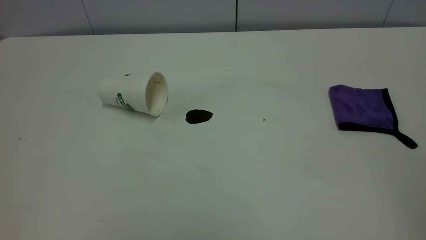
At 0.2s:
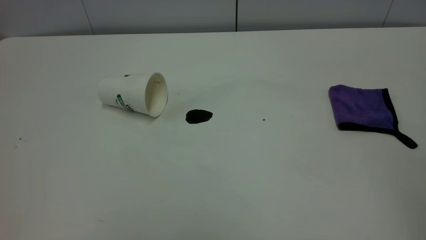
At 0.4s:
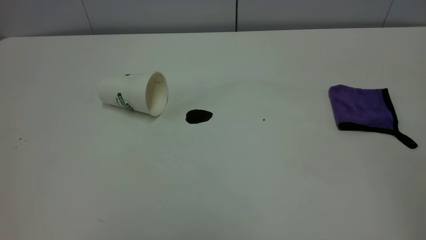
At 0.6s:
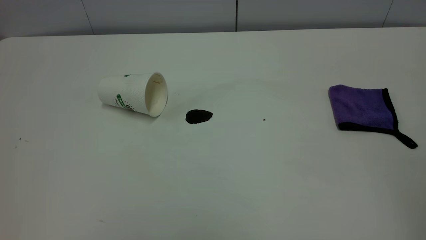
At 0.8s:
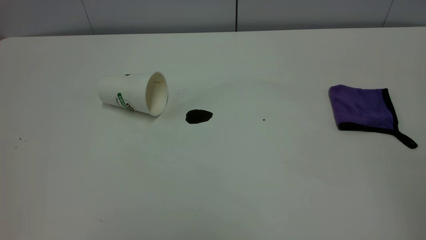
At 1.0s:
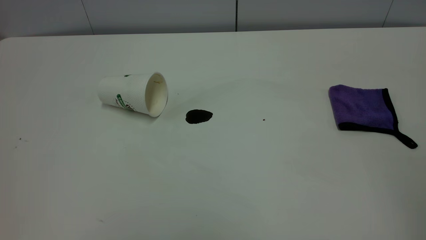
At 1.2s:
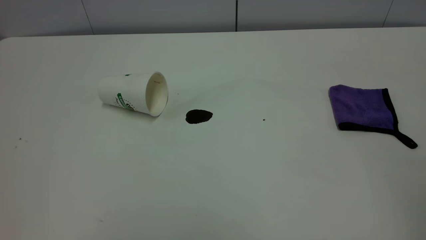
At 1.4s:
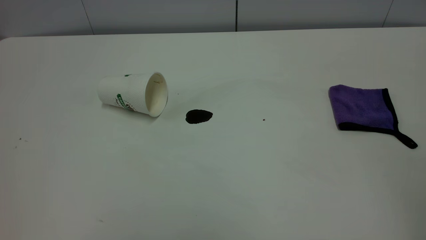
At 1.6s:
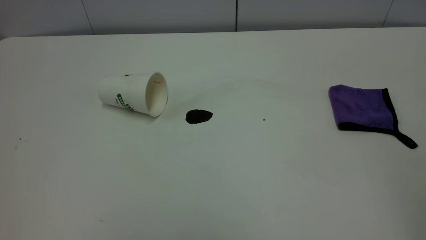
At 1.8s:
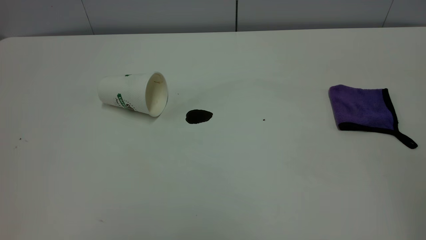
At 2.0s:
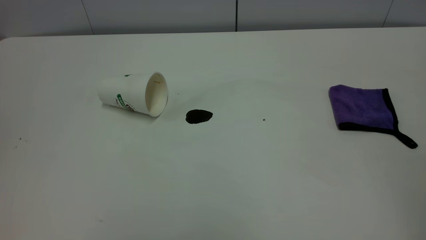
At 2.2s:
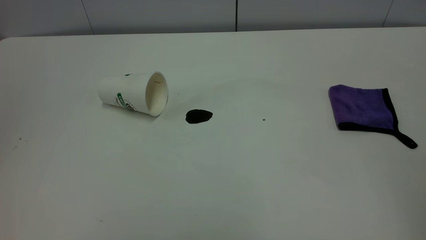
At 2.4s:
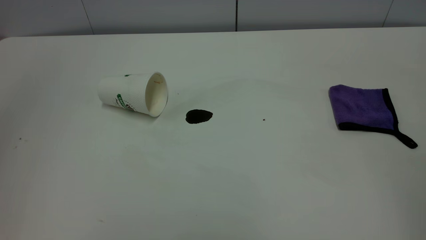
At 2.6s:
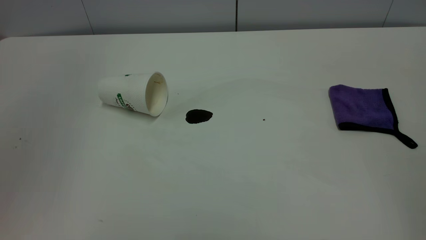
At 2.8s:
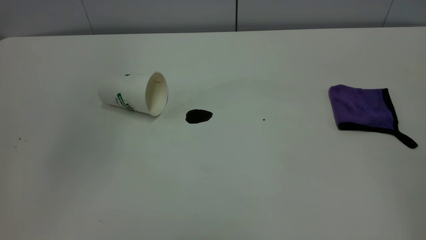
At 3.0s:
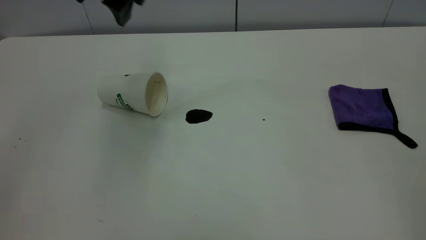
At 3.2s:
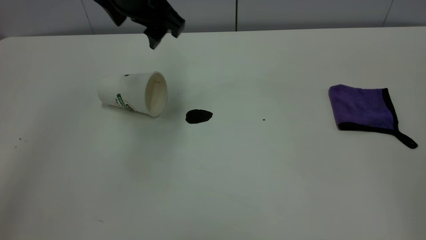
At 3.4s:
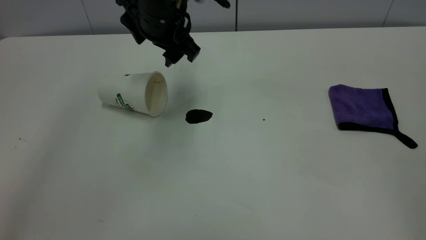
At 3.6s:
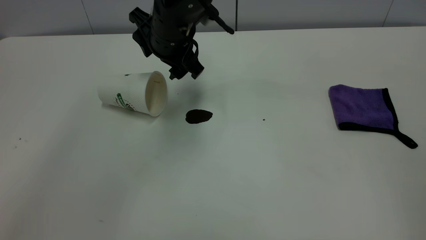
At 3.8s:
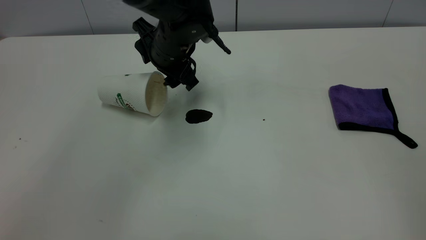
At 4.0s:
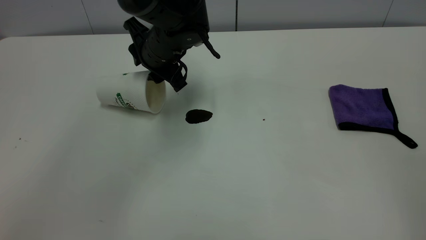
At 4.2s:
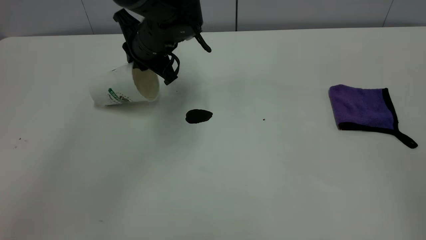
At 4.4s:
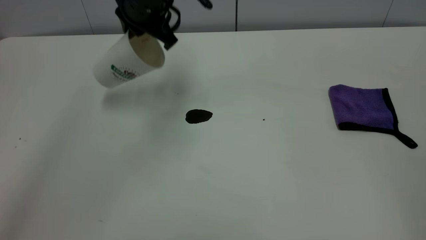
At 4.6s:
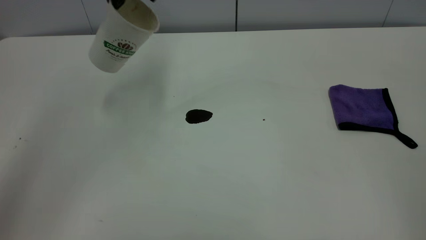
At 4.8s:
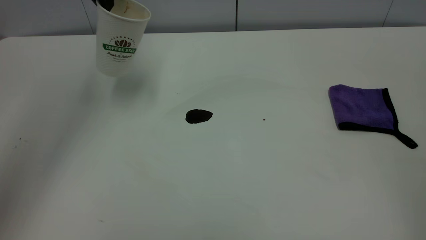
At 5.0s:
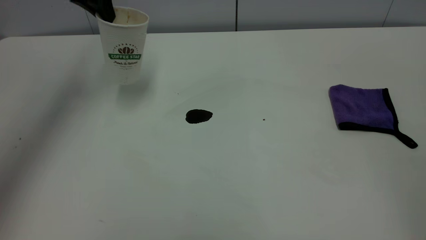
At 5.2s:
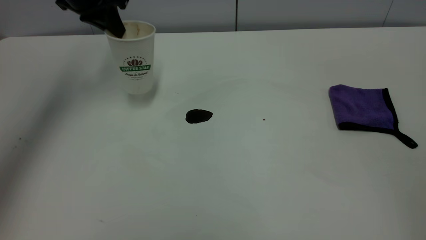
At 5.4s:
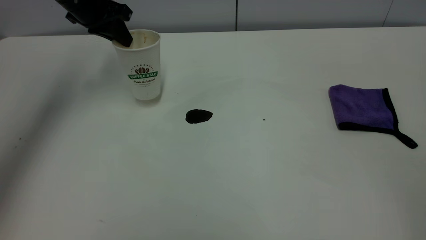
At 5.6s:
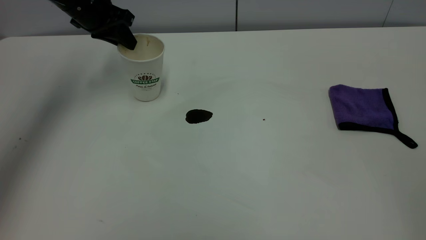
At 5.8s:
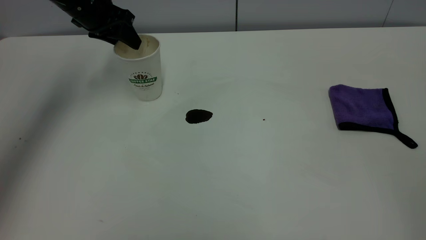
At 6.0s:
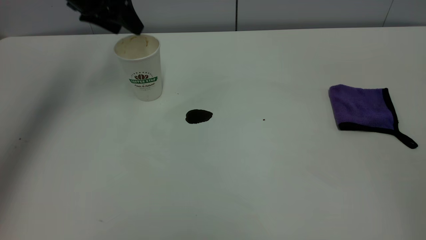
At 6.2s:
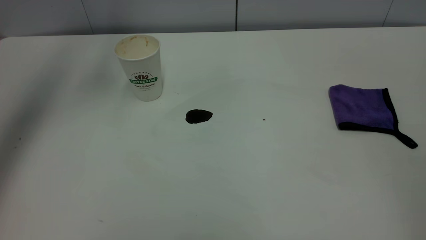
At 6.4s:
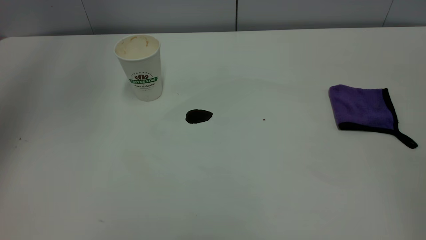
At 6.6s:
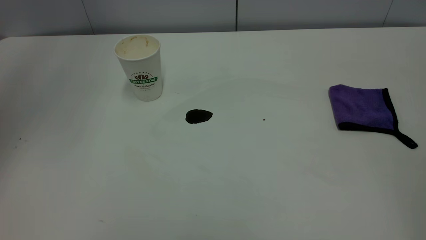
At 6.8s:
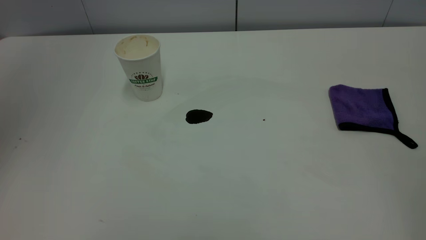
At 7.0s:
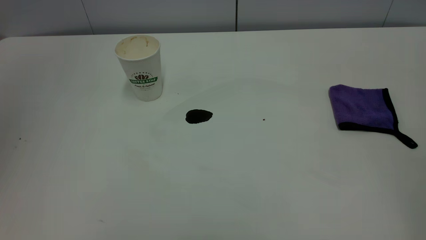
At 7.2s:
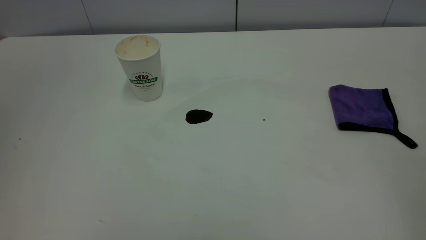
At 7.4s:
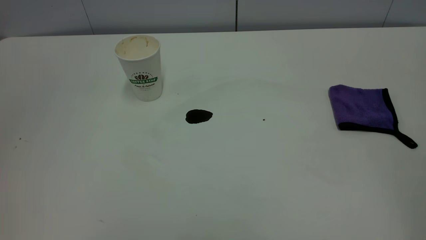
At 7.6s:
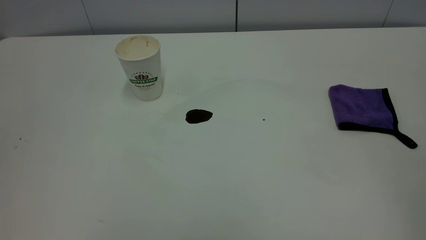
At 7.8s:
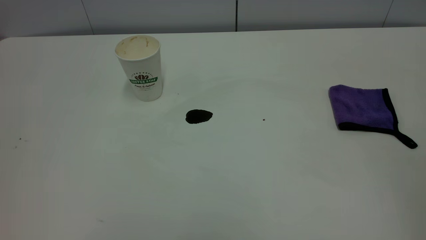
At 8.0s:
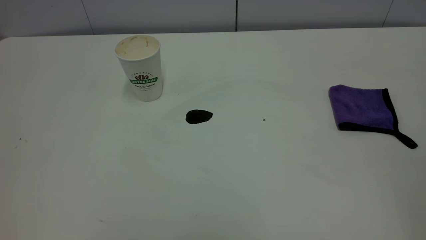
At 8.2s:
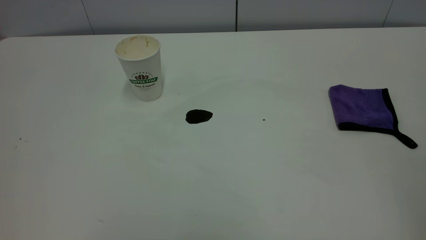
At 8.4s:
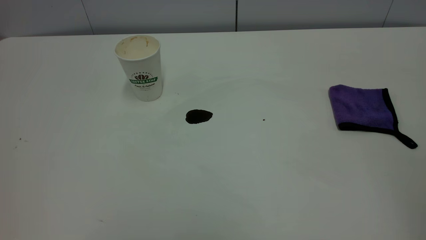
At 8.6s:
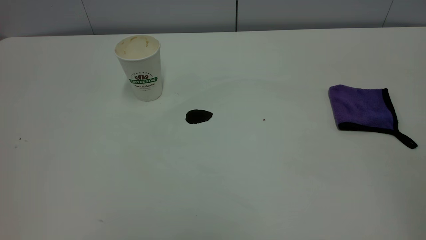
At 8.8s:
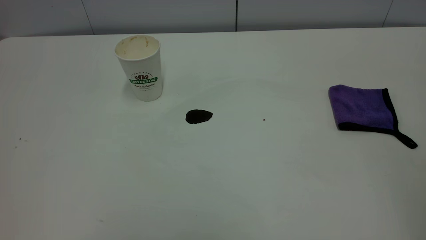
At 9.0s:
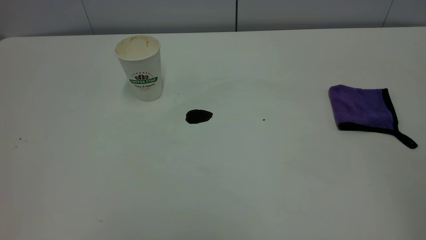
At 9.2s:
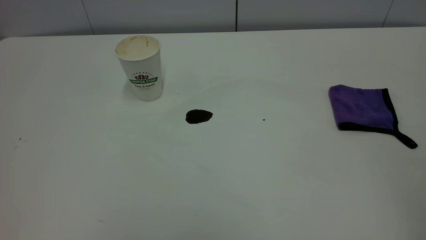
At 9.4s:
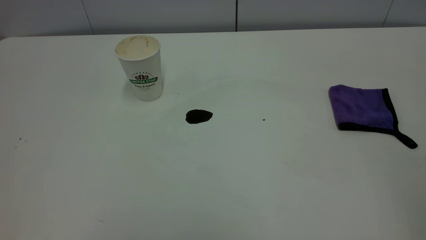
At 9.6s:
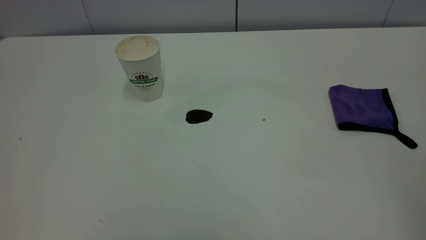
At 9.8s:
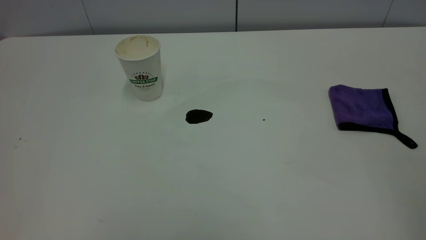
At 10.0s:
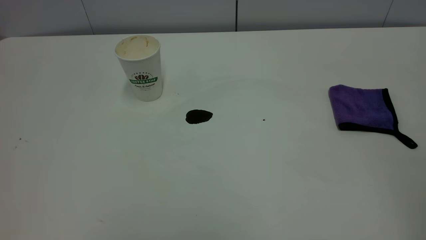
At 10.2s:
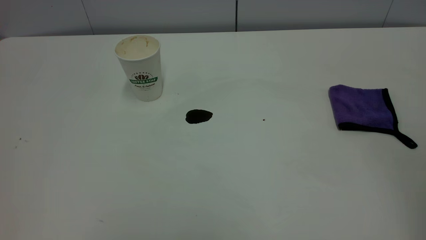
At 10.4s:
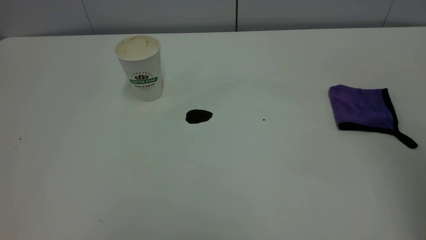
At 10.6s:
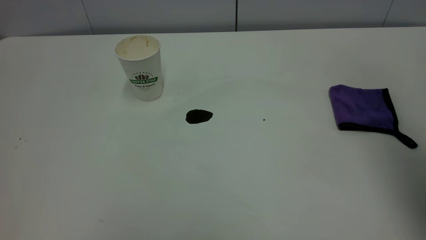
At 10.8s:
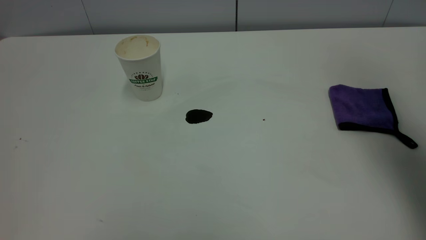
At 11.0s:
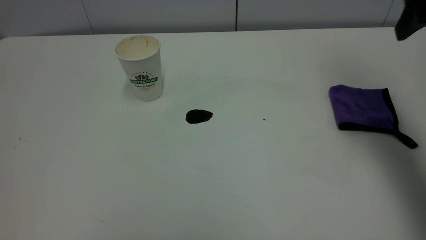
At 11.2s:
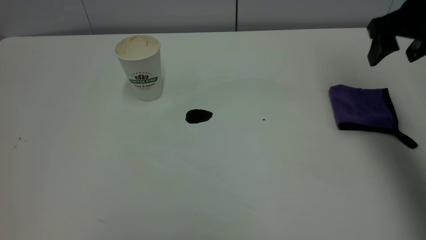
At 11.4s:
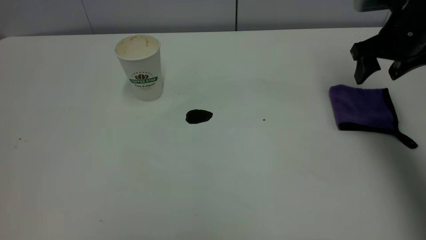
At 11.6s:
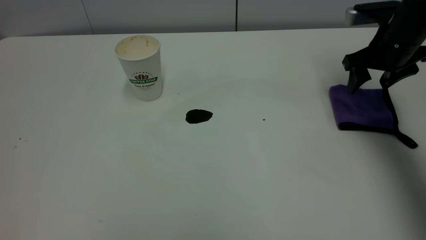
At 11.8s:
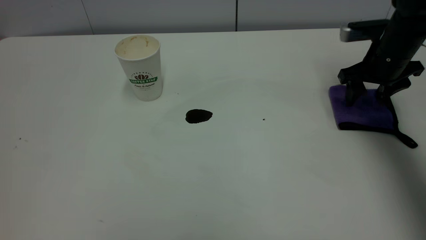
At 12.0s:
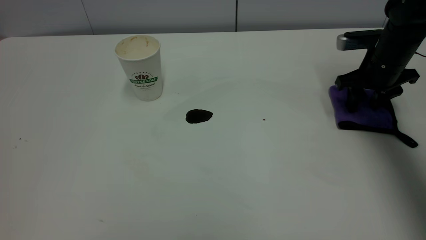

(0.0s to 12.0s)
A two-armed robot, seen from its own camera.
Task of the whole recording: the left gripper pick up the fallen cup and place it upright, the right gripper grasp the purple rag and wipe the coffee stain on the table, the right gripper put the purple rag back in its original position.
Step, 0.0s - 5.8s: Stand the paper cup upright.
0.0s - 1.6s: Both grippers stay about where they are.
1.6s - 3.0s: The left gripper is displaced forward and to the right by about 40 cm, and opens.
3.0s - 4.4s: The left gripper is displaced forward and downward by roughly 10 cm, and closes its fingers.
4.4s - 6.0s: The left gripper shifts approximately 15 cm to the left, and opens.
6.0s - 7.6s: The left gripper travels backward and upward by roughly 50 cm, and closes its fingers.
10.4s - 12.0s: The right gripper heads downward and forward, covering roughly 50 cm.

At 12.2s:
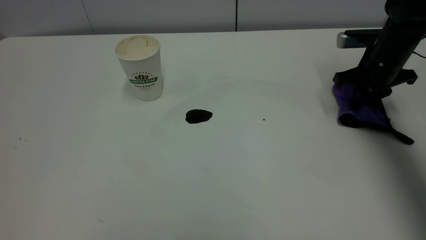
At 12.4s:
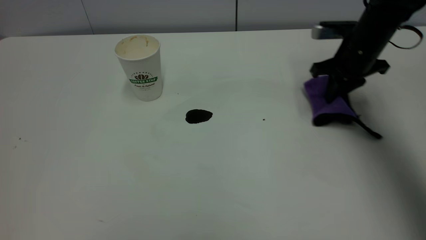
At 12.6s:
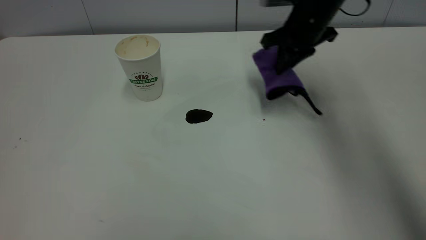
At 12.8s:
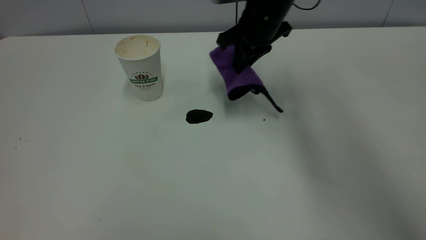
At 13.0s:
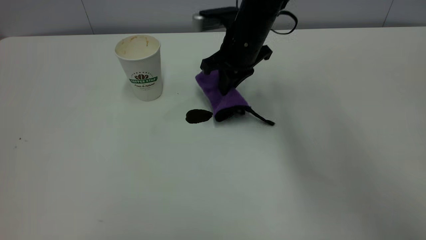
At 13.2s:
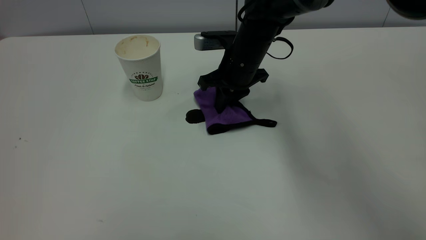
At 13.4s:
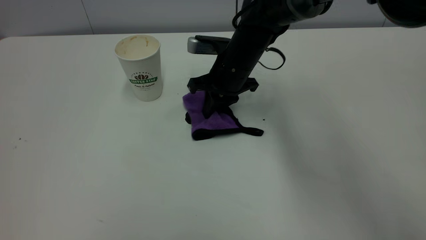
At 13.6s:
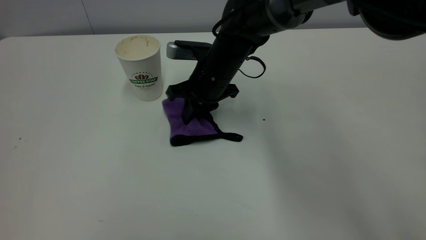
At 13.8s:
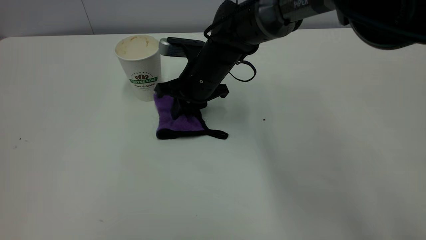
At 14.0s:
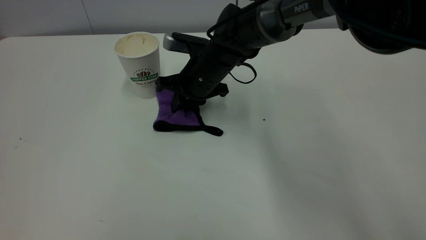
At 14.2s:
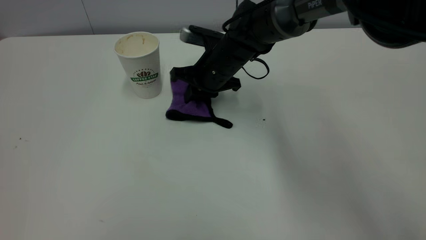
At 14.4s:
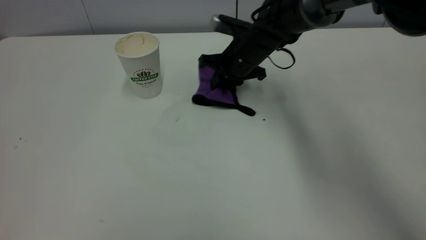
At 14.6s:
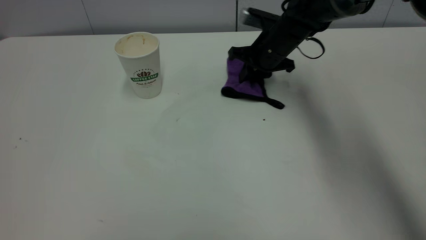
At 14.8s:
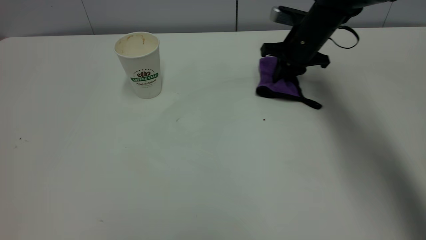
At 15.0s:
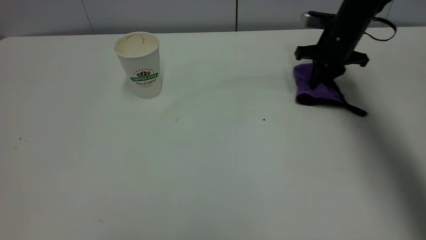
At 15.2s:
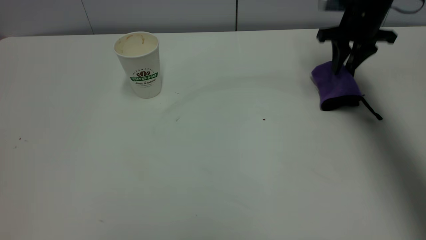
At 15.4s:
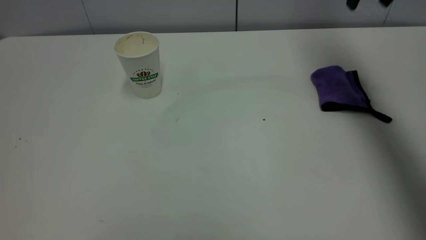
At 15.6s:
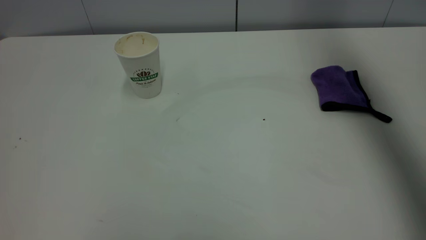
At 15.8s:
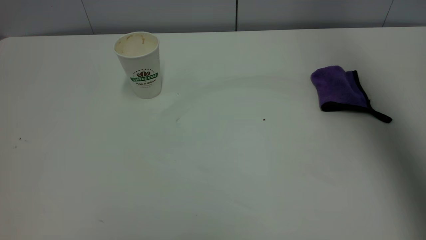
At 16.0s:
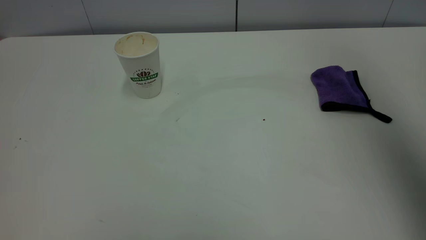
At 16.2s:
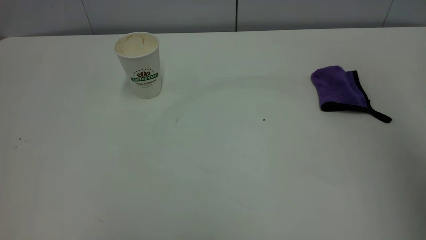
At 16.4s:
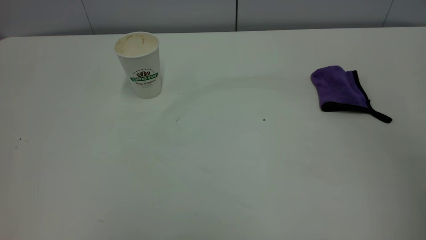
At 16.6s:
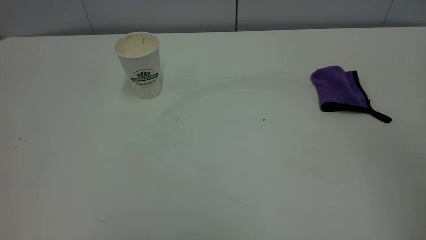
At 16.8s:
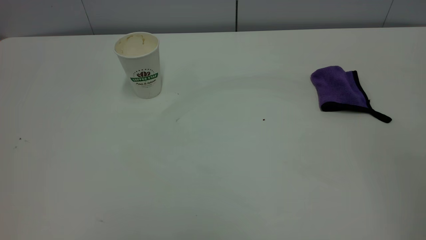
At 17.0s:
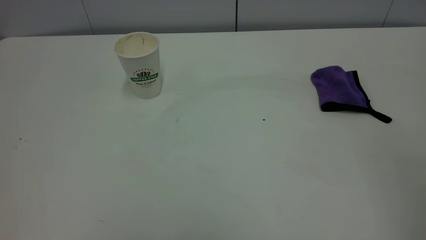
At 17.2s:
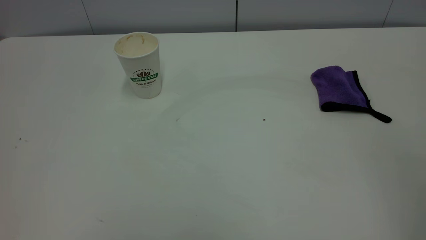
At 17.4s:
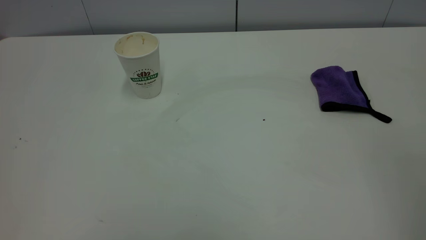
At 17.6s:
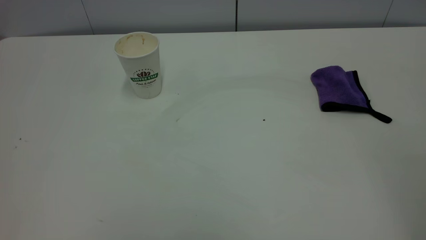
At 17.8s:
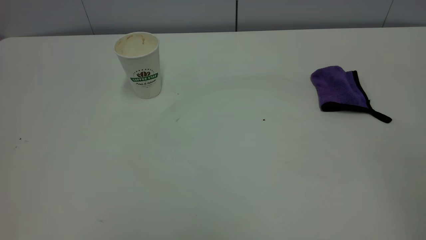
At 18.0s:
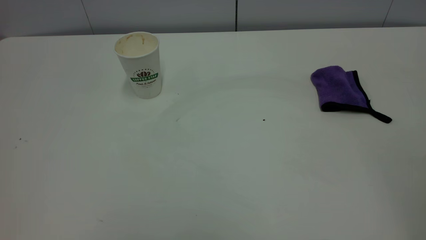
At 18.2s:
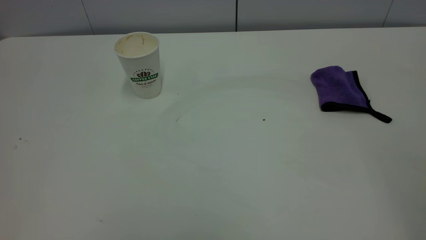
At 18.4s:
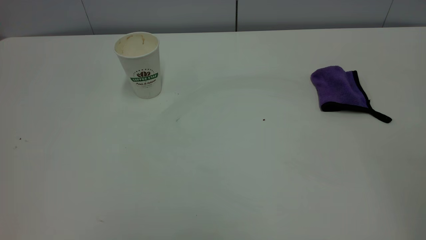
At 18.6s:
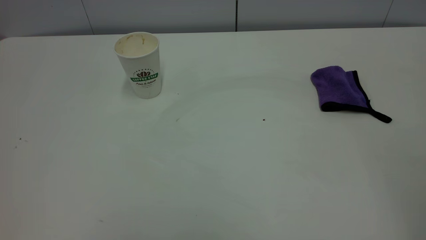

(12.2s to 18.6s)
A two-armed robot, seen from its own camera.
Task of the whole recording: the left gripper pick up the fallen cup and place it upright, the right gripper grasp the purple rag and wipe the coffee stain on the table, the right gripper put the purple rag back in its original position.
Step, 12.2s - 15.2s: Wipe the stains off the table with a rag.
12.2s - 13.8s: The right gripper heads to the left, covering approximately 30 cm.
13.8s - 15.4s: The right gripper is displaced to the right and upward by about 35 cm, and opens.
15.4s - 17.0s: The right gripper moves backward, roughly 50 cm.
